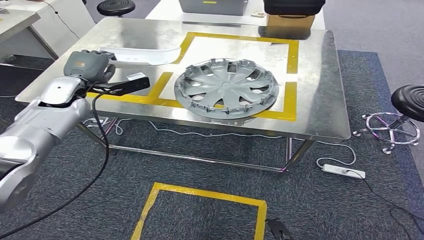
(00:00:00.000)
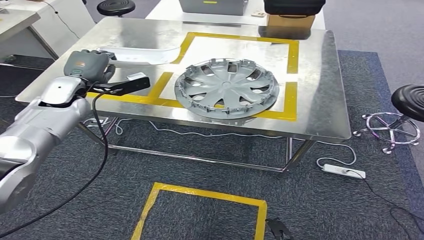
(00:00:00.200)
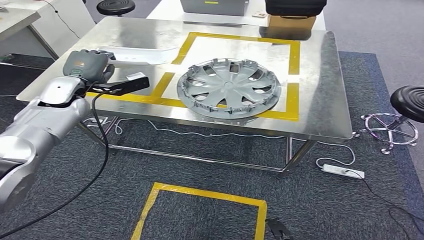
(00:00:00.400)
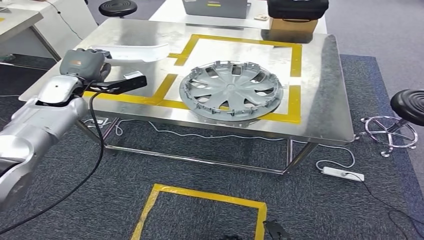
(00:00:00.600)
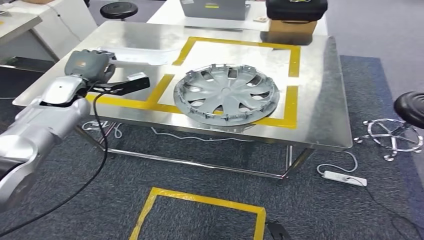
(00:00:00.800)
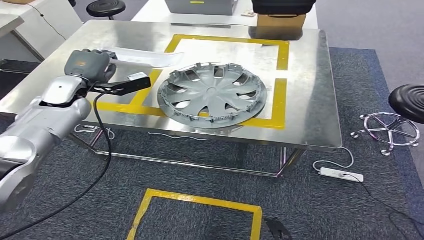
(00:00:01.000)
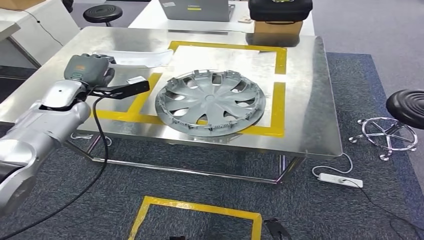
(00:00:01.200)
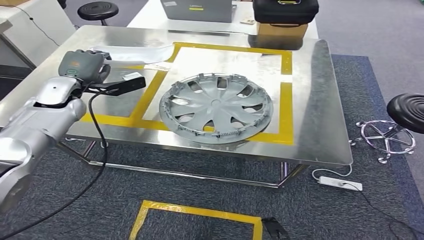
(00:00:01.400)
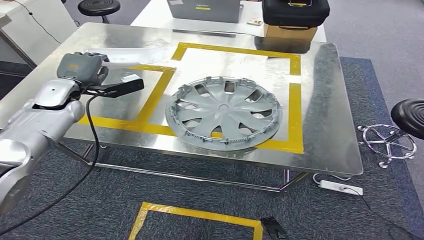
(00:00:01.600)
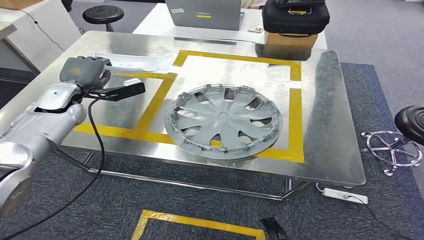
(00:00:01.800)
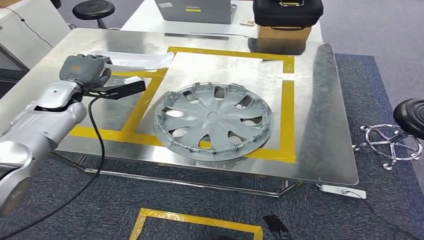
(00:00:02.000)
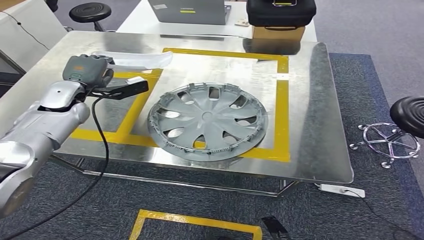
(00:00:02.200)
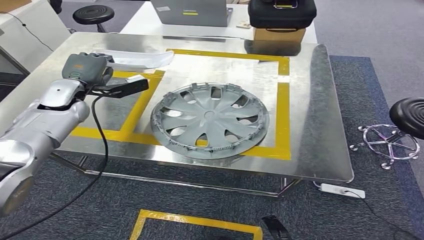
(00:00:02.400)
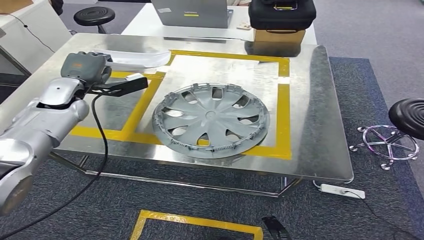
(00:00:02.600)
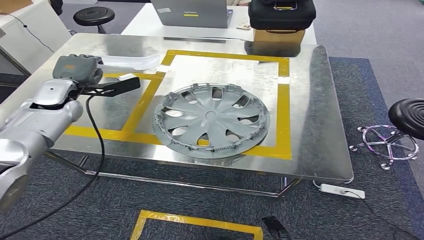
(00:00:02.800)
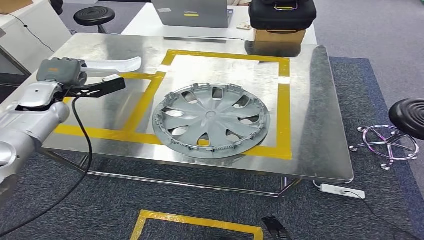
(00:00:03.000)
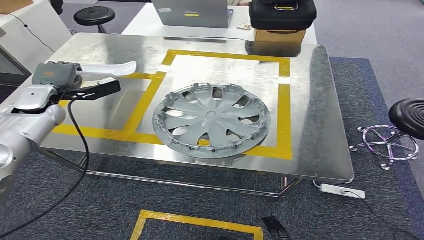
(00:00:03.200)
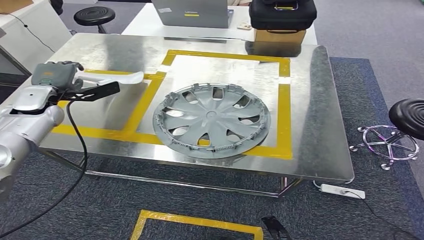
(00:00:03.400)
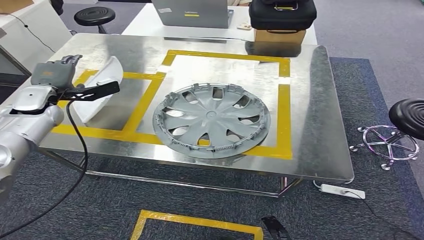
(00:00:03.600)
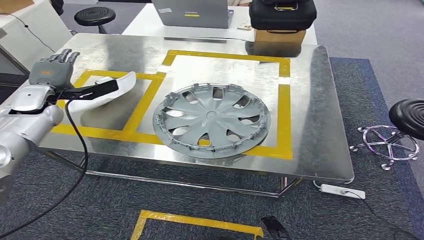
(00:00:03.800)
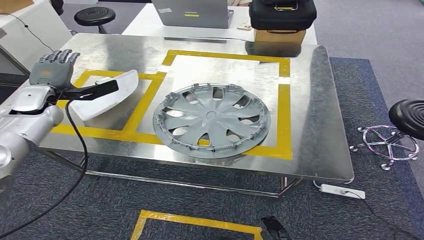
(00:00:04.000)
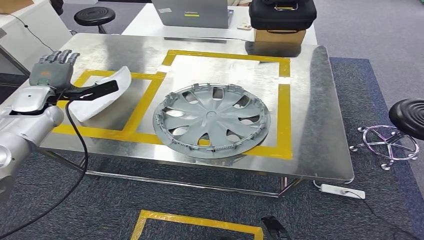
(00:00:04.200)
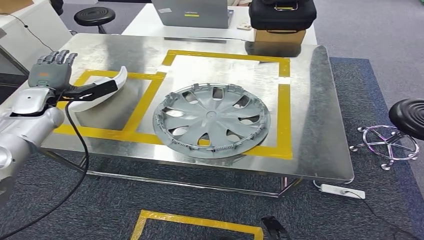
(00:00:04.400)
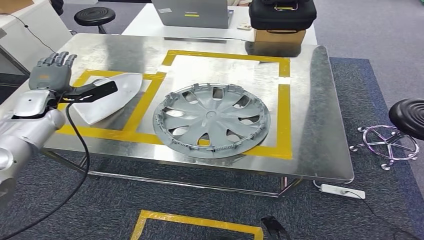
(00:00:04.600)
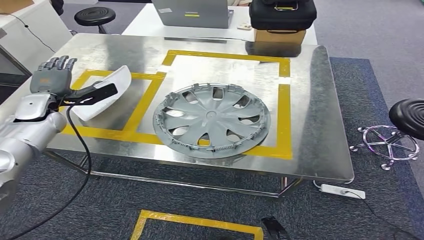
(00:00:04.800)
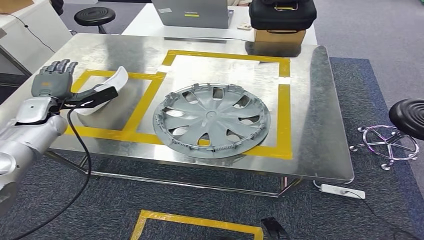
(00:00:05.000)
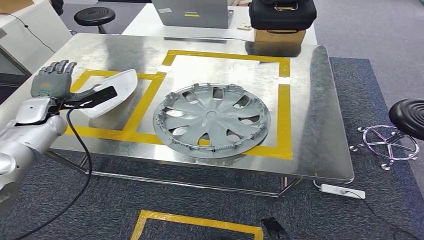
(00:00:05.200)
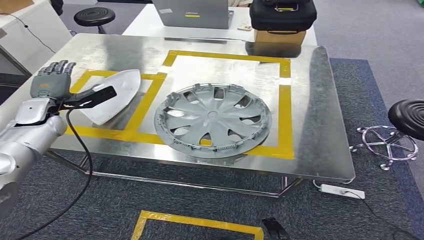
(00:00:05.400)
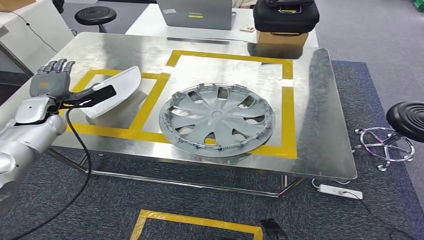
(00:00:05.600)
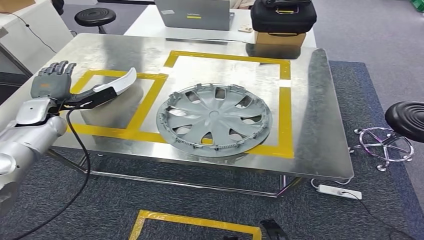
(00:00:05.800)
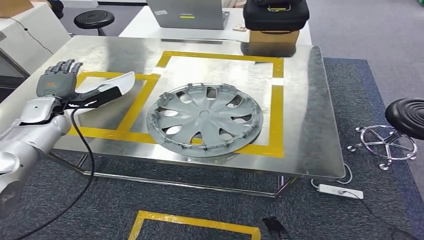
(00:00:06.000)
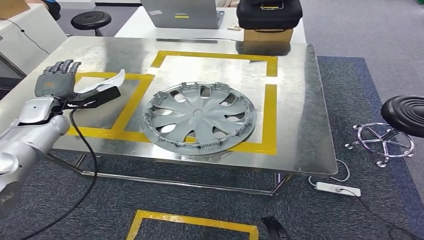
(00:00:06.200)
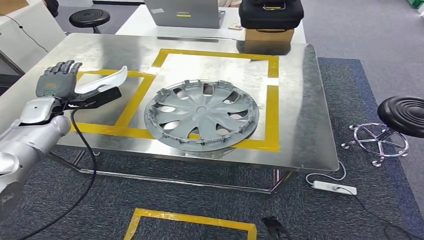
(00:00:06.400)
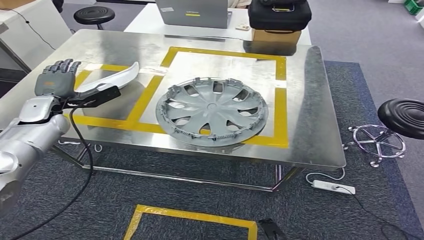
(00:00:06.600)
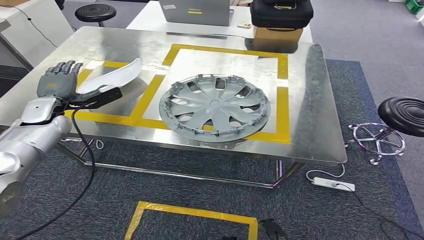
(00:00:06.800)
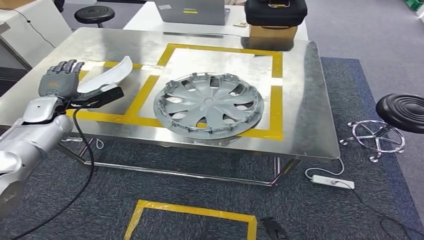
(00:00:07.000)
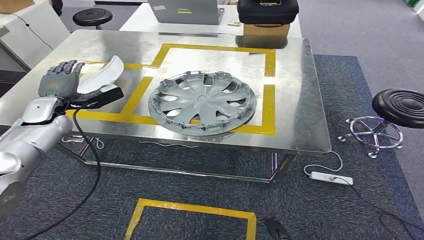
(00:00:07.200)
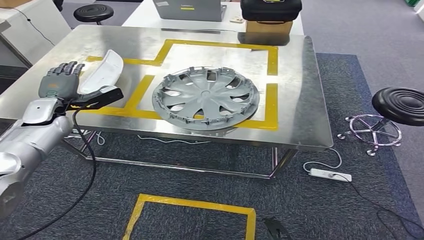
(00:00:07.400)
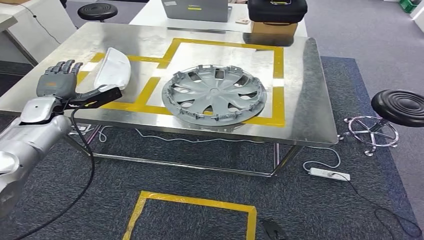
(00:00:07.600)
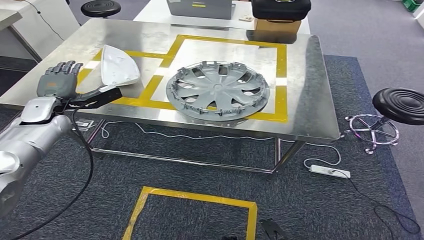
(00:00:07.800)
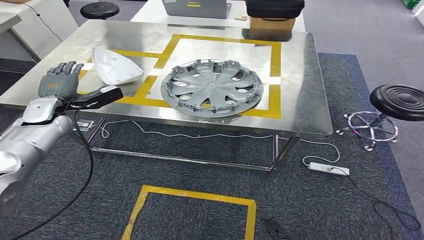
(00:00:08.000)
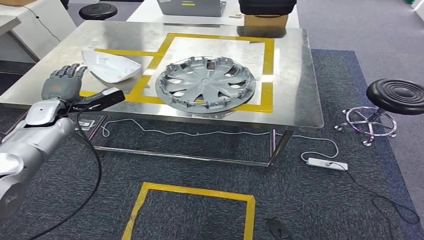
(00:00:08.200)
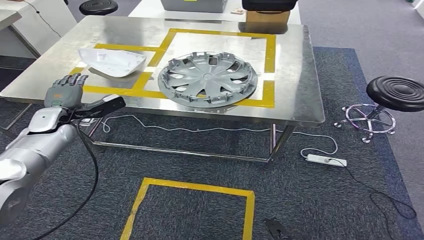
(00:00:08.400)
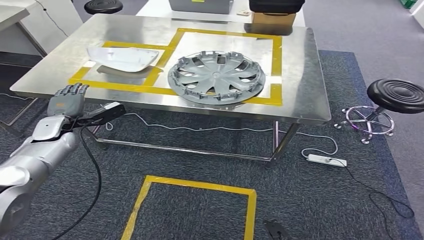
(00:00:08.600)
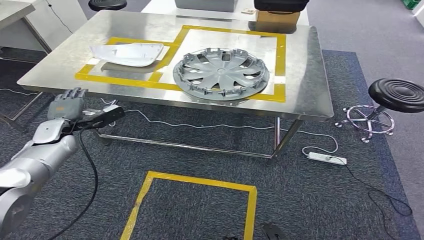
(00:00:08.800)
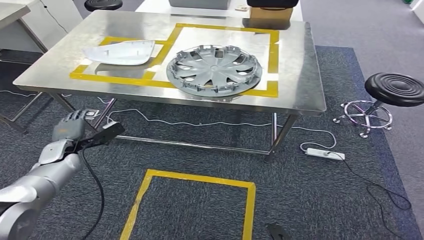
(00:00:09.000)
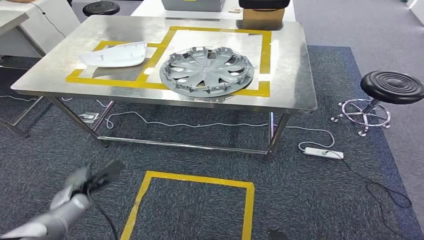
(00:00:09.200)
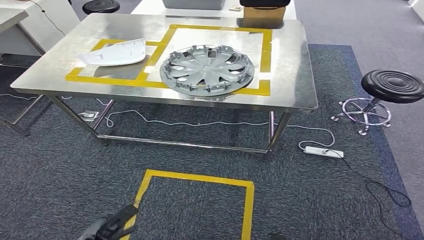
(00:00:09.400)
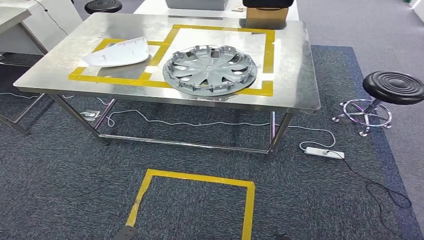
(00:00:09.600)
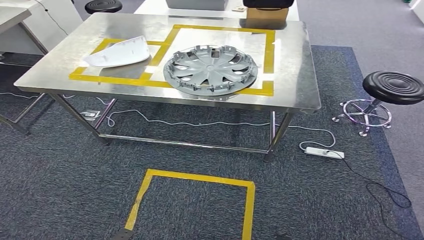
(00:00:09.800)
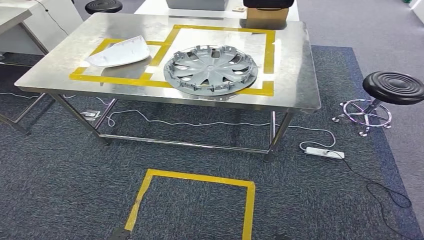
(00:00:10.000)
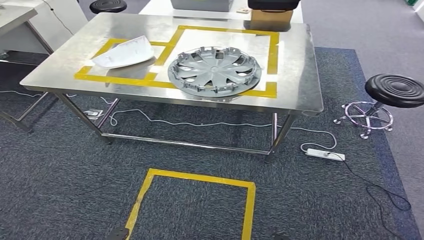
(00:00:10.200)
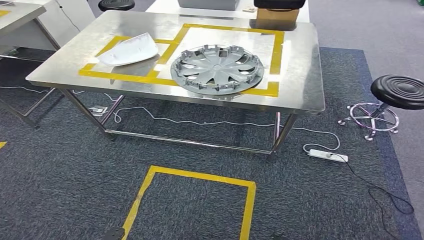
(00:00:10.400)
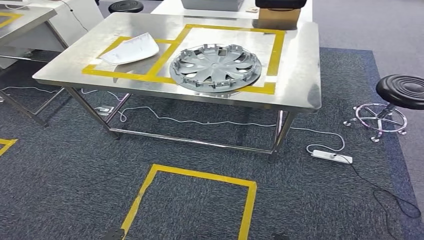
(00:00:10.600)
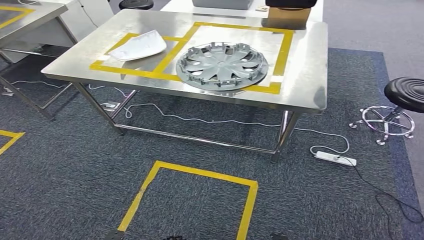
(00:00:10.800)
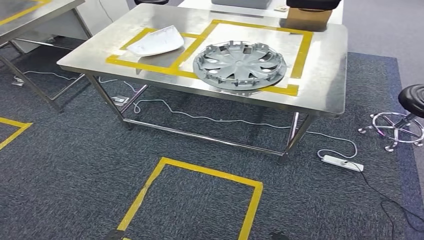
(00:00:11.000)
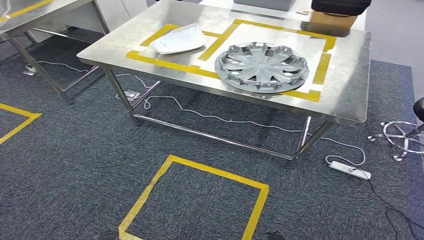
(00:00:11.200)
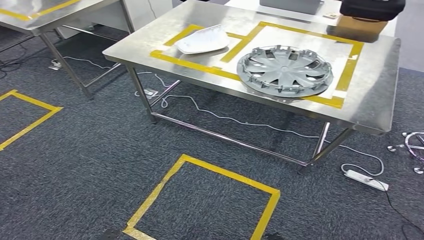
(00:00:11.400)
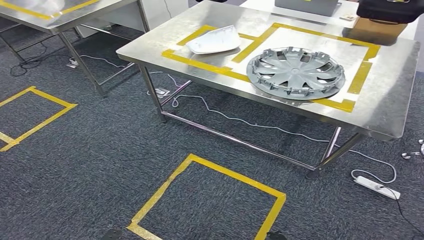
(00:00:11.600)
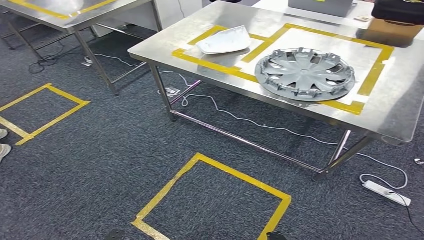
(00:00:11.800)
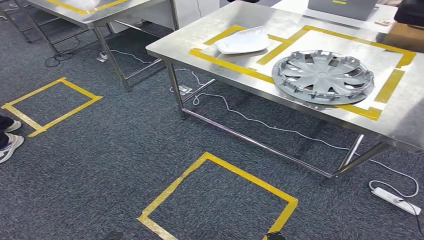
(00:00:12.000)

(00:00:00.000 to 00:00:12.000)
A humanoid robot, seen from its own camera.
Step, 00:00:00.000 - 00:00:09.800: Insert the small parts into the corresponding slots on the workbench.
00:00:03.000 - 00:00:04.400: There are only small adjustments of the hands.

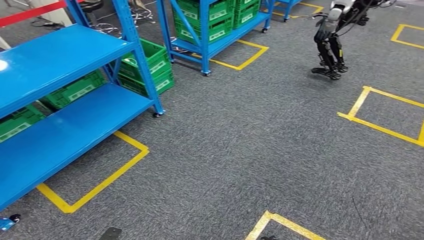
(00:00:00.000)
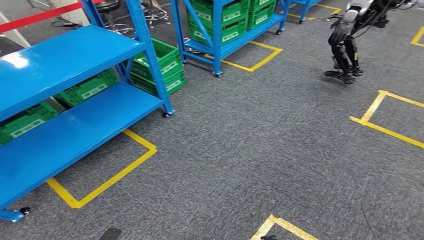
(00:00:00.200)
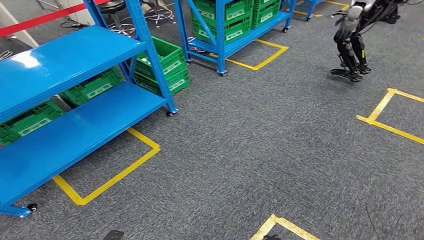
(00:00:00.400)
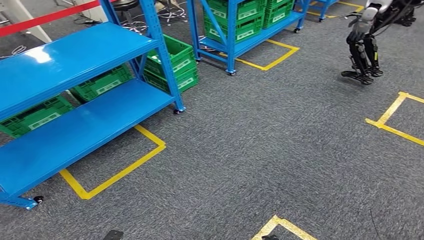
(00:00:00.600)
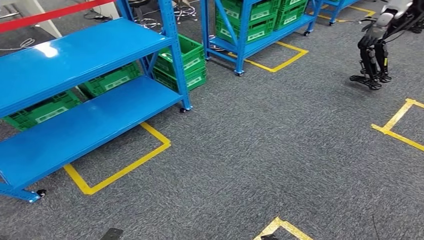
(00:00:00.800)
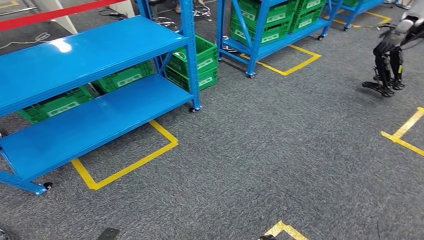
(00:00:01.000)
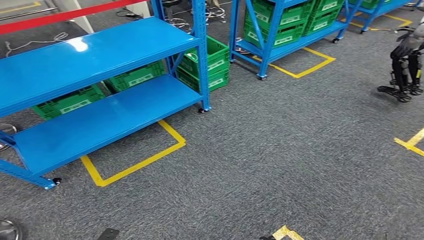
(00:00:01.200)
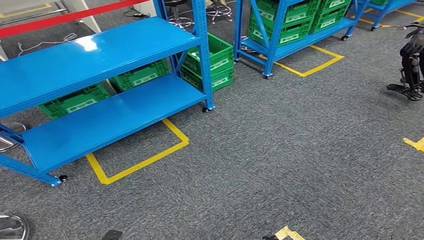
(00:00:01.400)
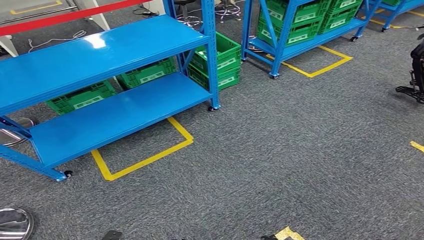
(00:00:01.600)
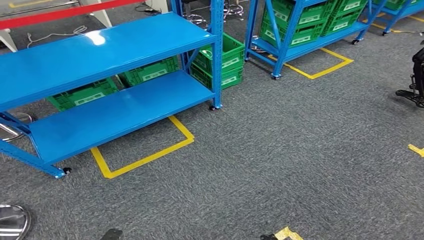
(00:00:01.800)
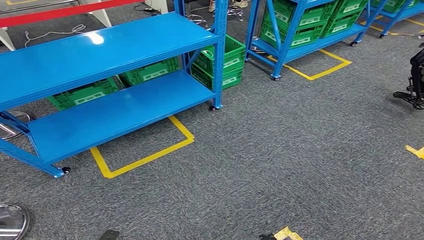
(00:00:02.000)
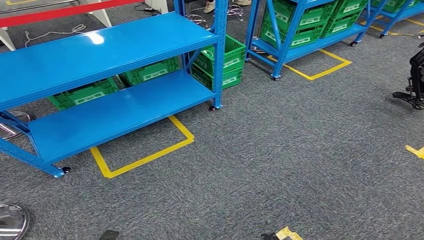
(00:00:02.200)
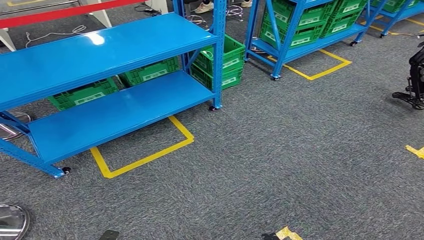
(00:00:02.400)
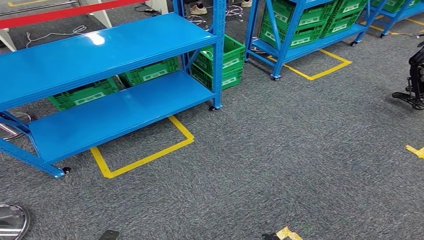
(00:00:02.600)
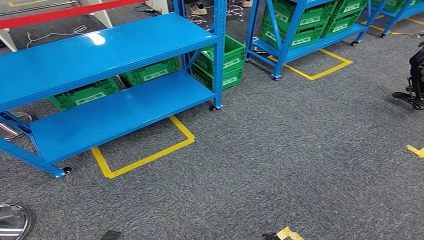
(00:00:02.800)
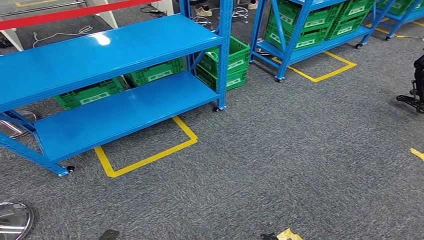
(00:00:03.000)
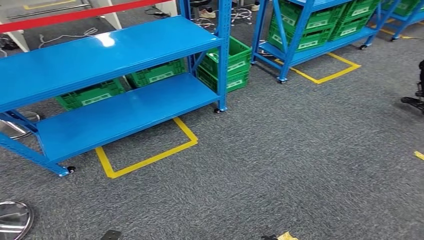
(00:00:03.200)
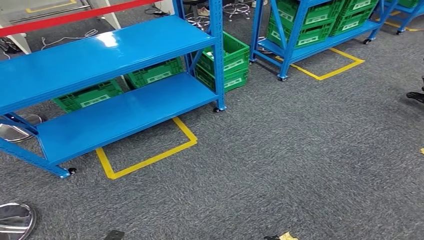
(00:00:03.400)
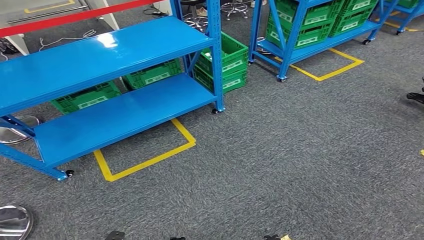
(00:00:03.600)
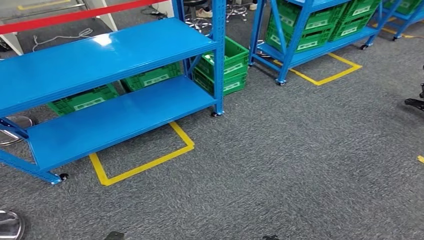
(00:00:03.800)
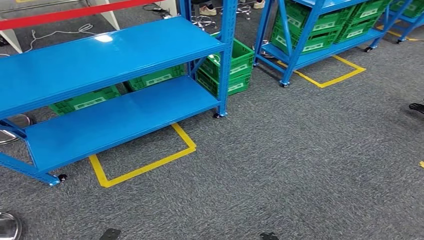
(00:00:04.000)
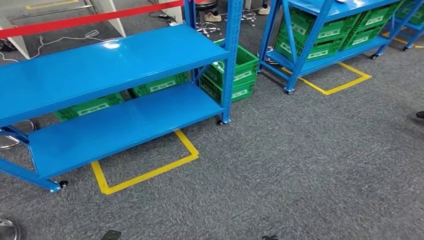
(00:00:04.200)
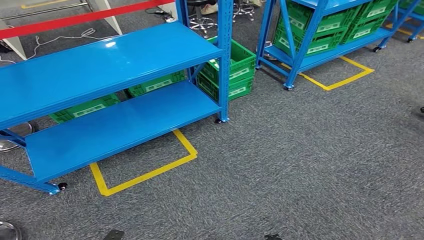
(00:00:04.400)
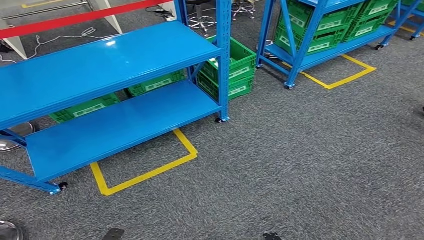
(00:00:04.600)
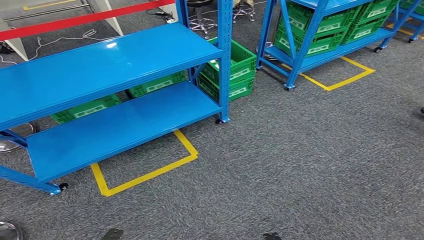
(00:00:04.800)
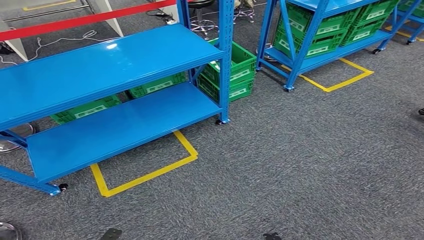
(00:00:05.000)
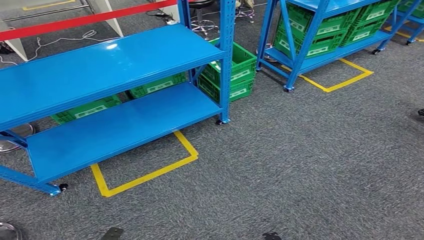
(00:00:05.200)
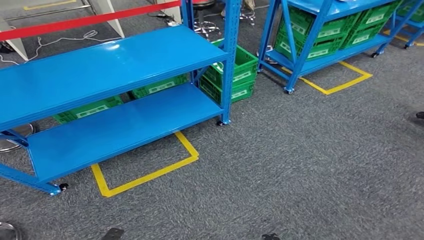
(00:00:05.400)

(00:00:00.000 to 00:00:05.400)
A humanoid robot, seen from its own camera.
Step, 00:00:00.000 - 00:00:05.400: Return to the initial position at the workbench.
